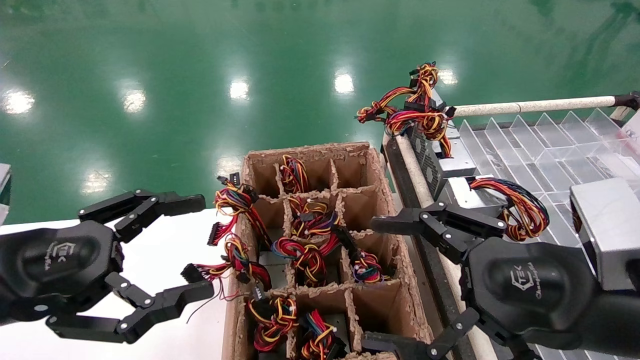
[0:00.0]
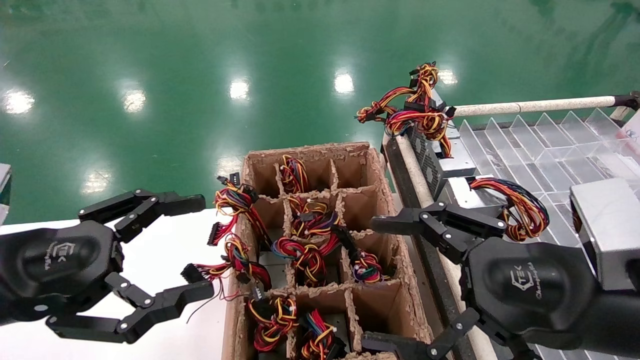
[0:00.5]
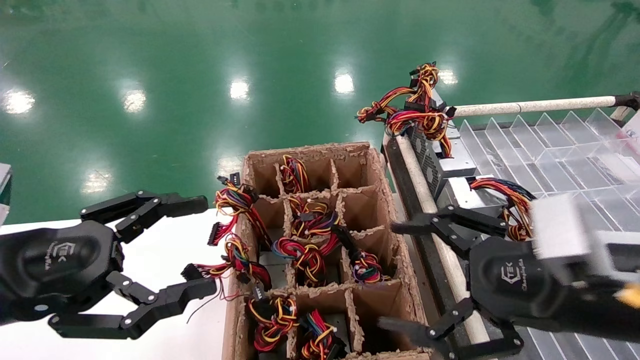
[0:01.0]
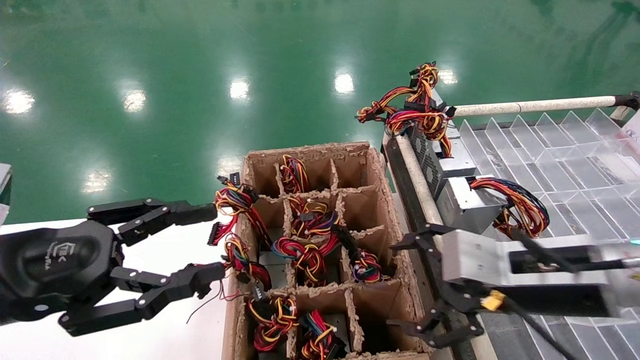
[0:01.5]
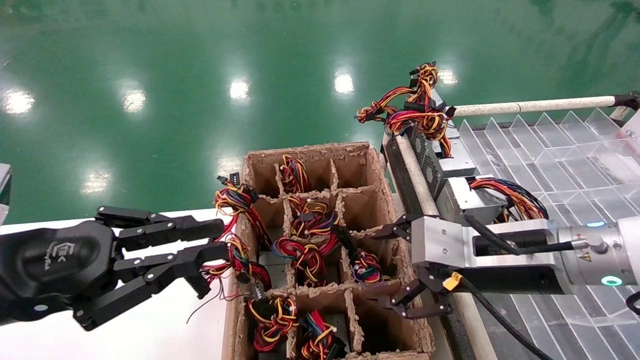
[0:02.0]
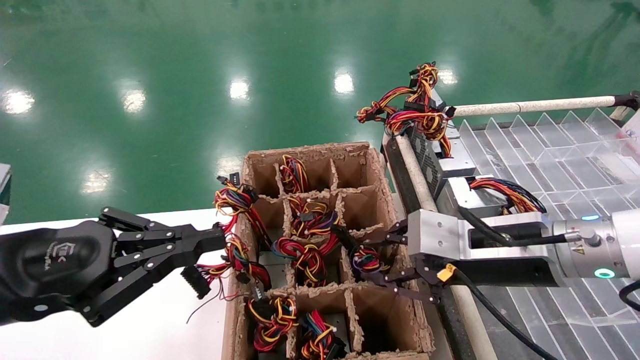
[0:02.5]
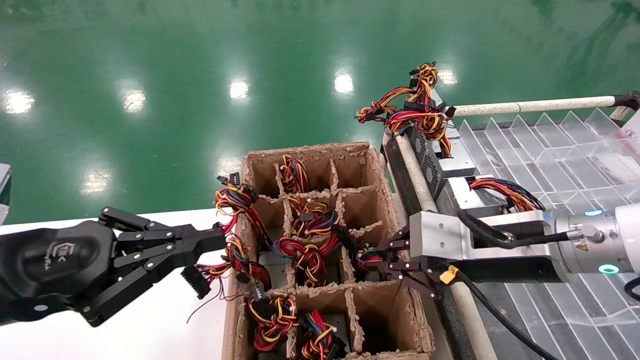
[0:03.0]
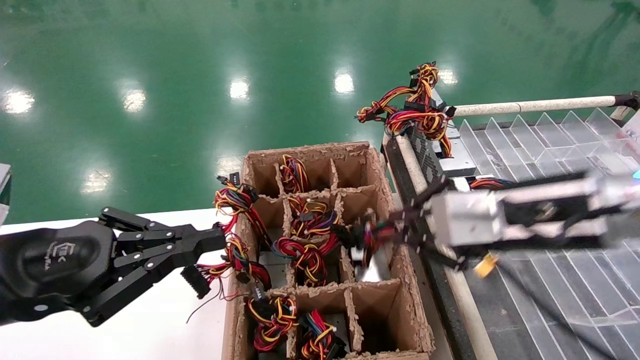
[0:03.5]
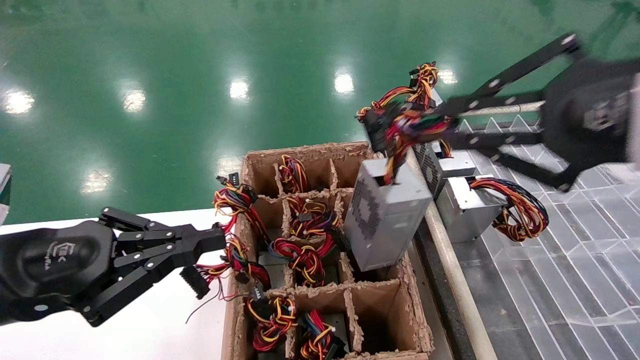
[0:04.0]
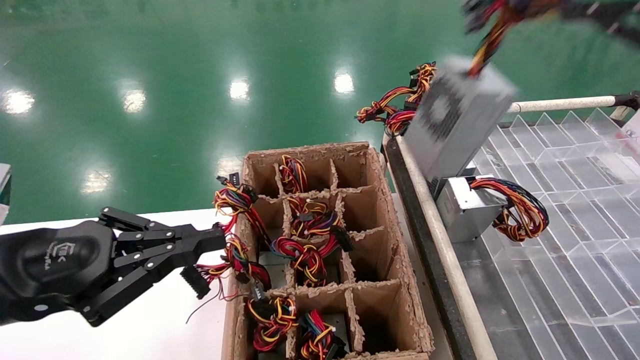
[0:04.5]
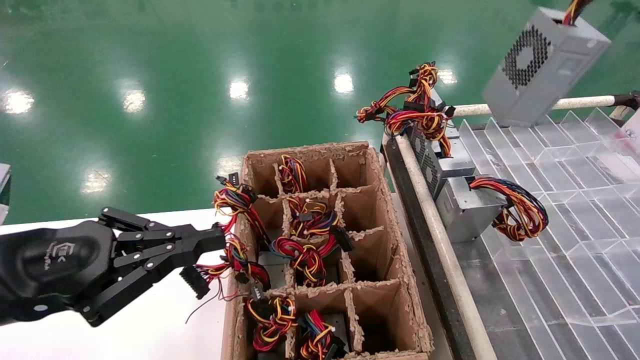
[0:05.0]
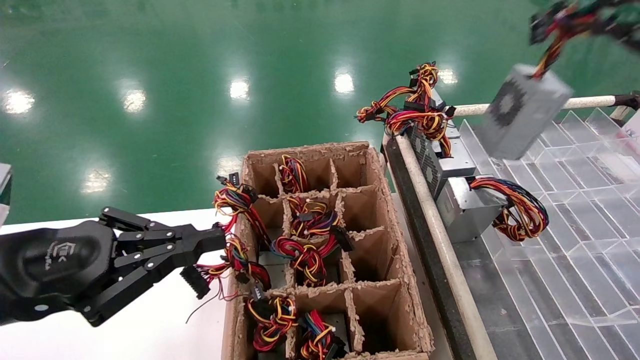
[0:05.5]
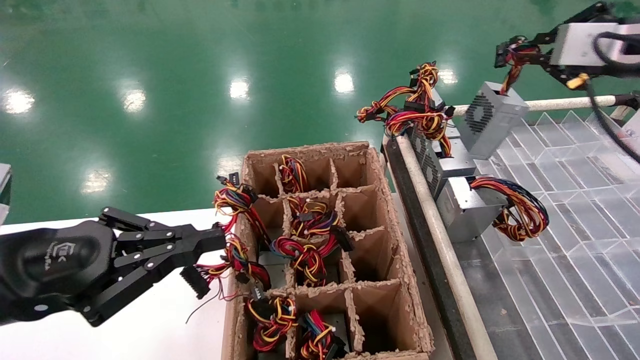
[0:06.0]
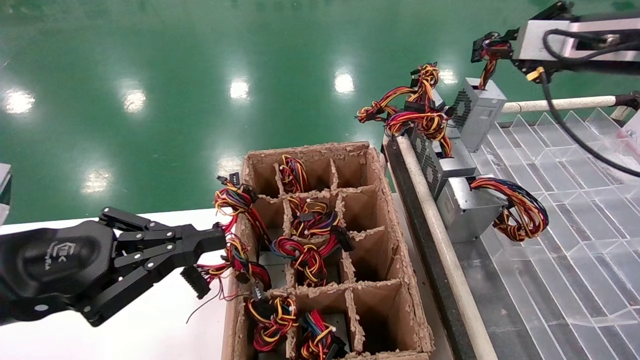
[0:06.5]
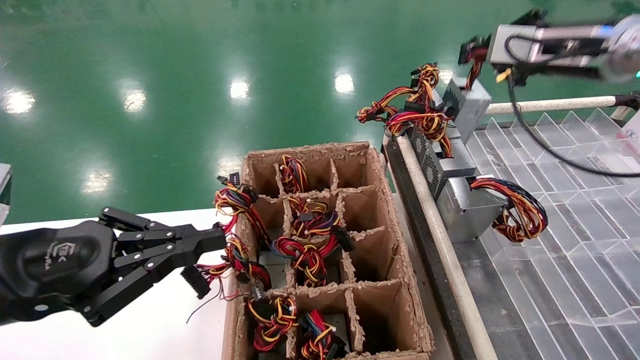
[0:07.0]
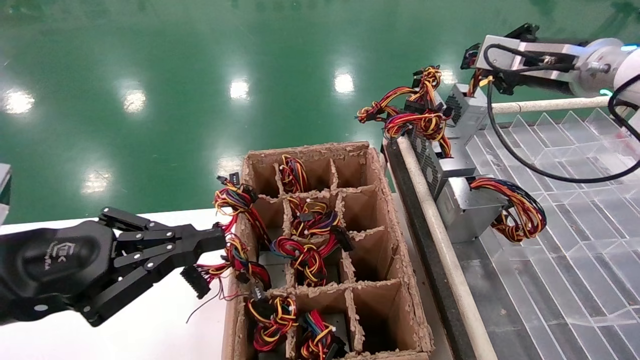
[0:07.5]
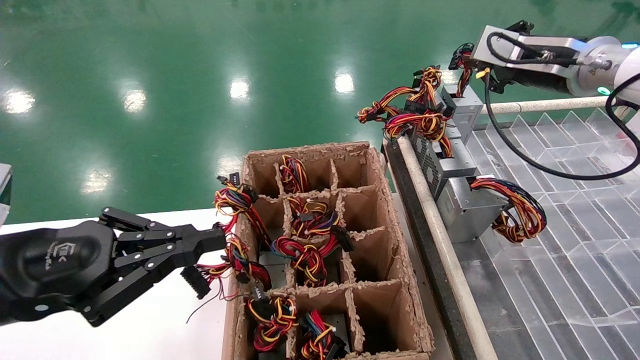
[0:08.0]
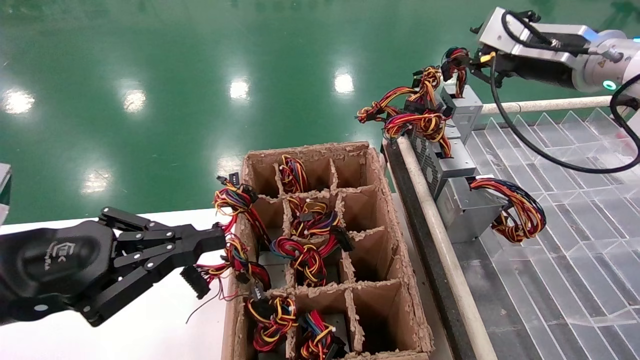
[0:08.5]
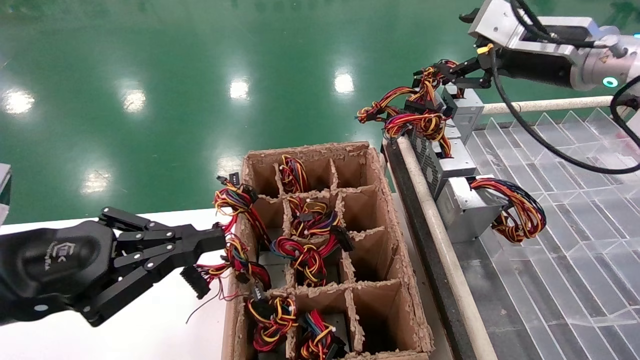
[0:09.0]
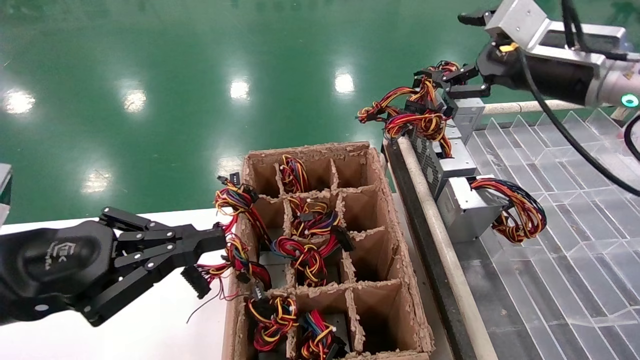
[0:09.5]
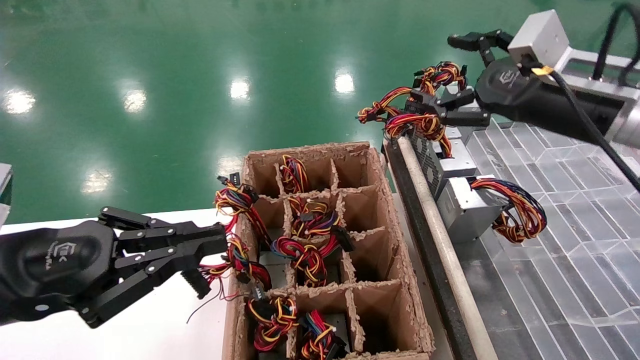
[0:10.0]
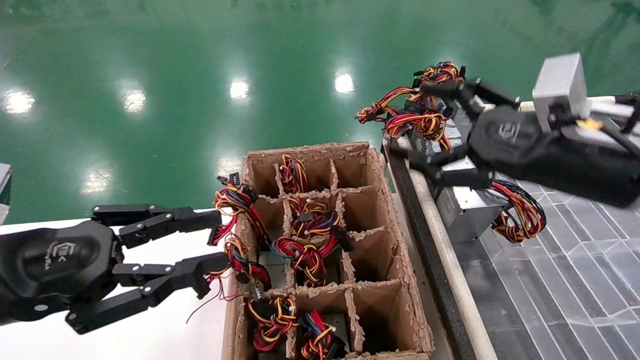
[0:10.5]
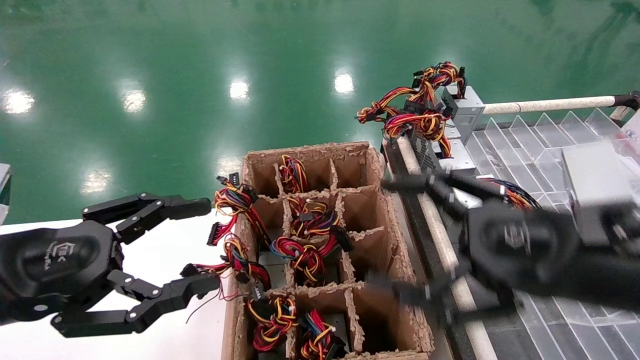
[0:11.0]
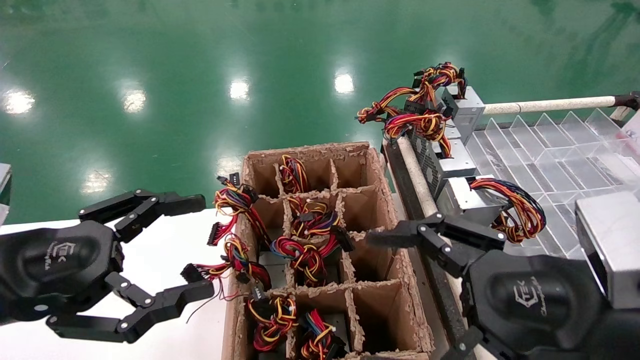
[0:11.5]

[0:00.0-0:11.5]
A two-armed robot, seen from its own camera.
Step, 0:01.5 to 0:03.0: Grab the main unit power supply from the containment box.
Step, 0:03.5 to 0:09.0: Place the main unit power supply in the designated area.
0:00.0 to 0:02.0: The right gripper moves forward, roughly 10 cm. The left gripper closes up.
0:02.0 to 0:04.0: The right gripper travels upward and backward by roughly 20 cm, and closes its fingers.
0:04.0 to 0:06.0: The right gripper shifts approximately 20 cm forward and to the right.
0:06.0 to 0:07.5: The right gripper goes approximately 10 cm forward and to the left.
0:07.5 to 0:09.5: The right gripper changes place by approximately 5 cm, and opens its fingers.
0:09.5 to 0:11.5: The right gripper goes approximately 25 cm backward and downward. Meanwhile the left gripper opens its fingers.

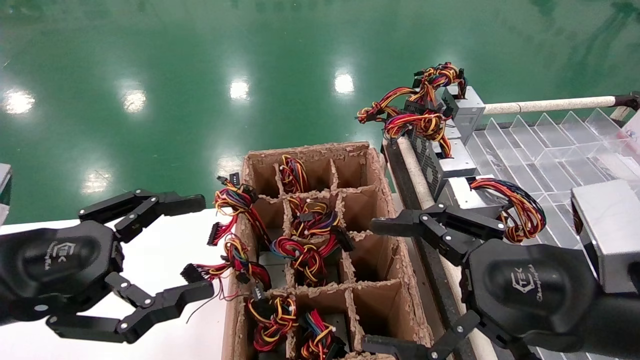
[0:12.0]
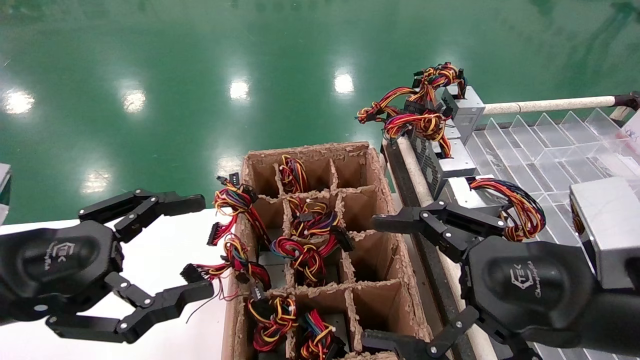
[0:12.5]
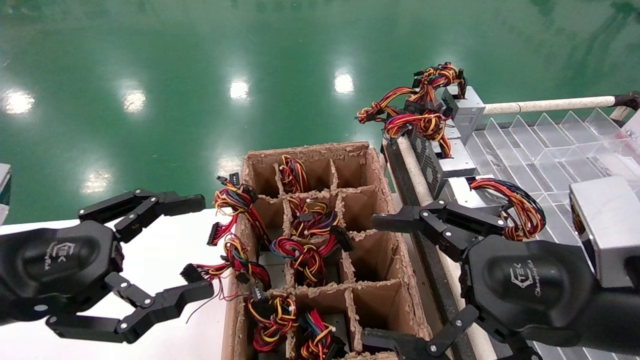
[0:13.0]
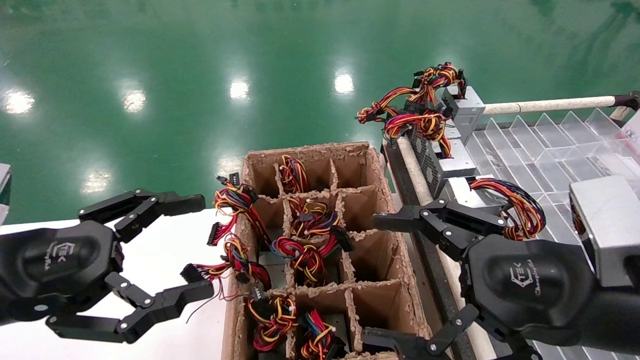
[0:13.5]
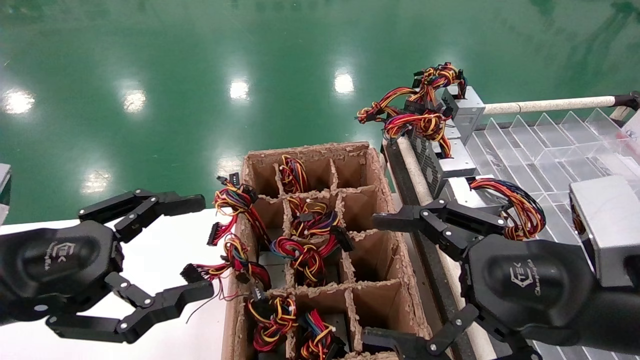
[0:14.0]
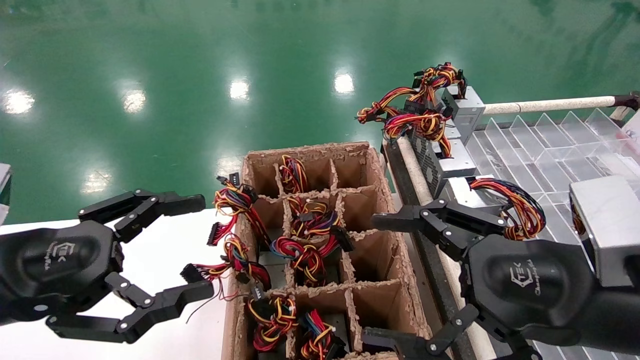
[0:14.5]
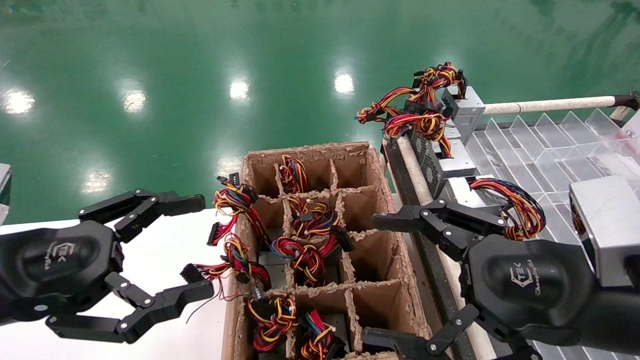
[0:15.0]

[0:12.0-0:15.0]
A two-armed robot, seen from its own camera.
0:12.0 to 0:15.0: Both grippers stay put.

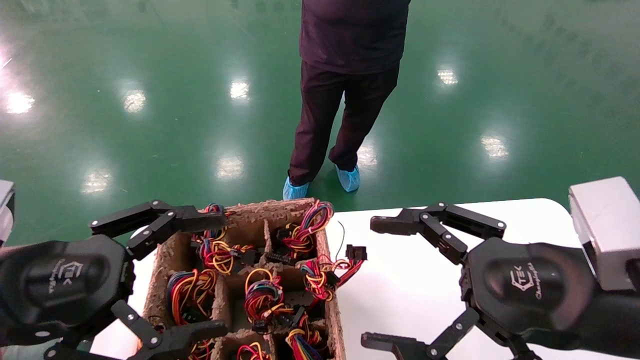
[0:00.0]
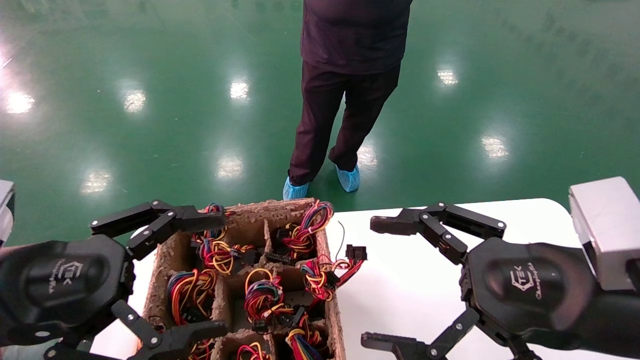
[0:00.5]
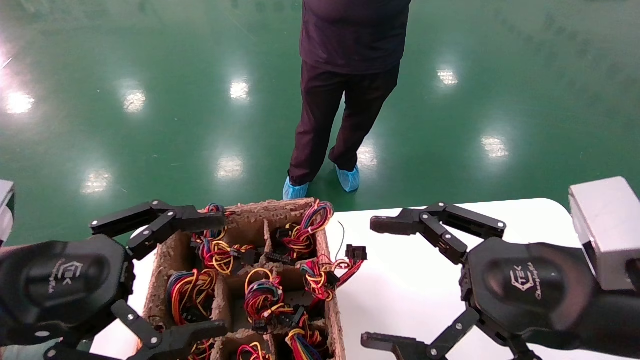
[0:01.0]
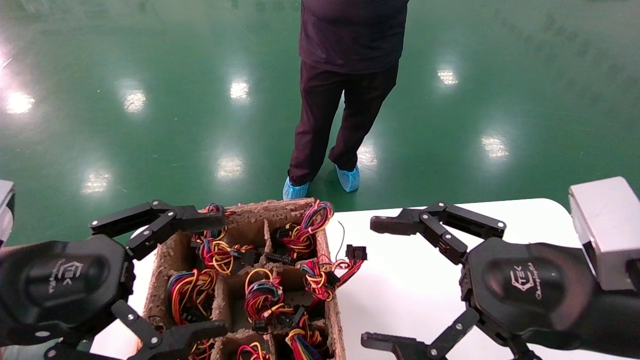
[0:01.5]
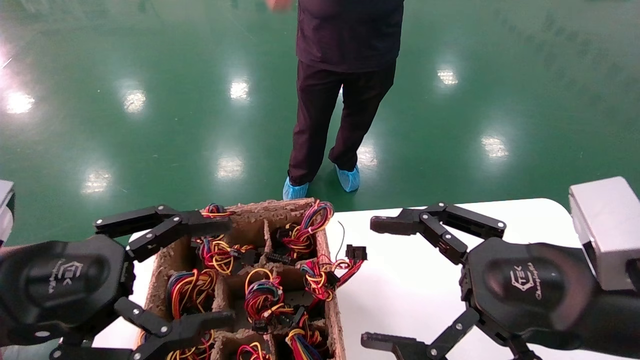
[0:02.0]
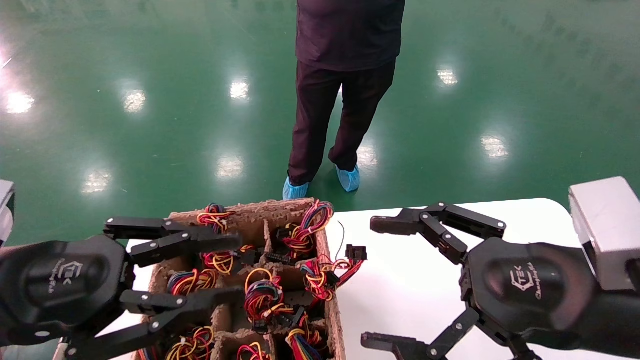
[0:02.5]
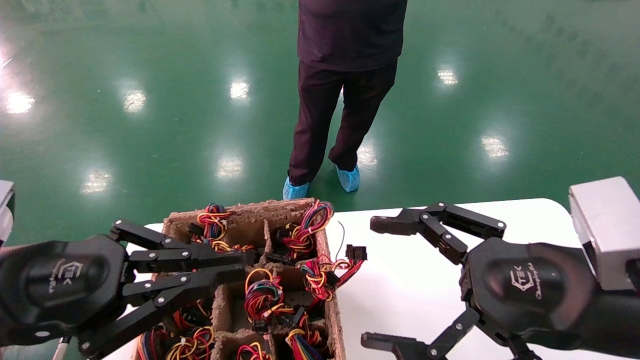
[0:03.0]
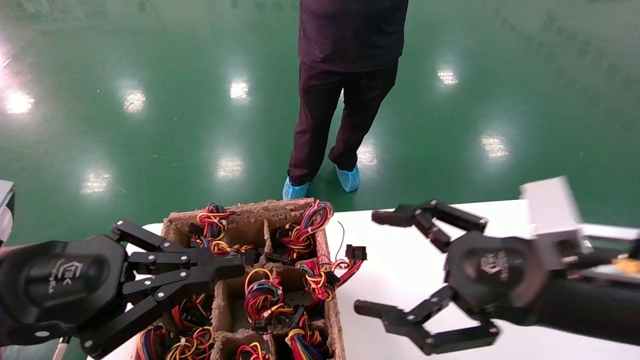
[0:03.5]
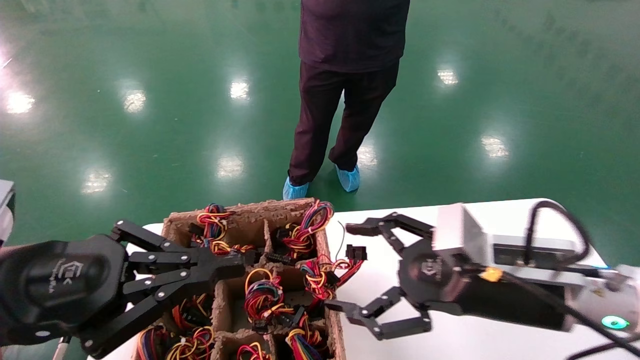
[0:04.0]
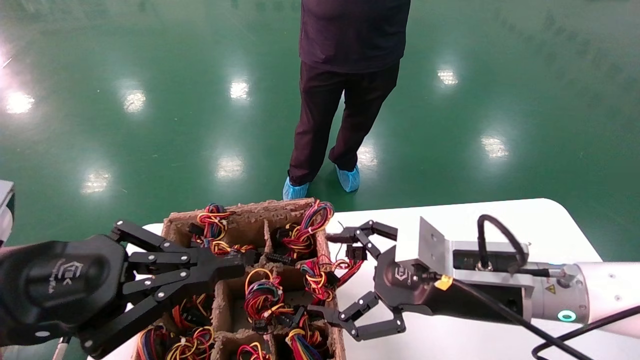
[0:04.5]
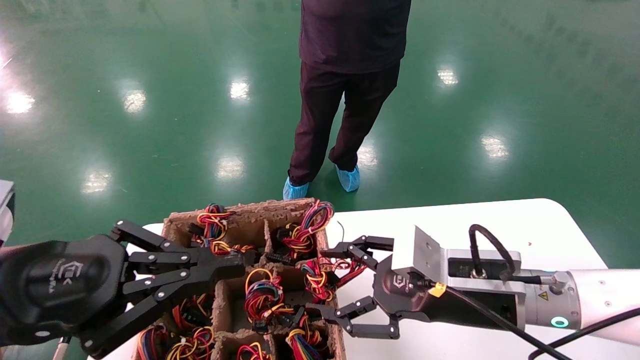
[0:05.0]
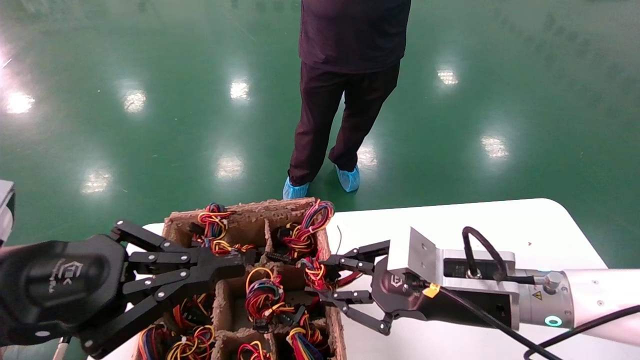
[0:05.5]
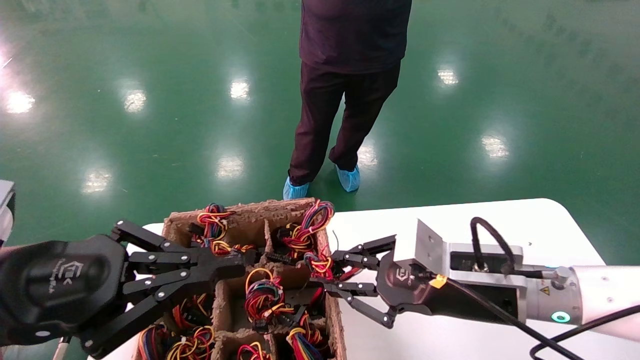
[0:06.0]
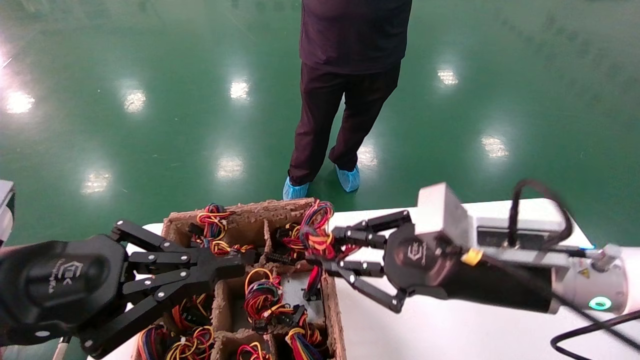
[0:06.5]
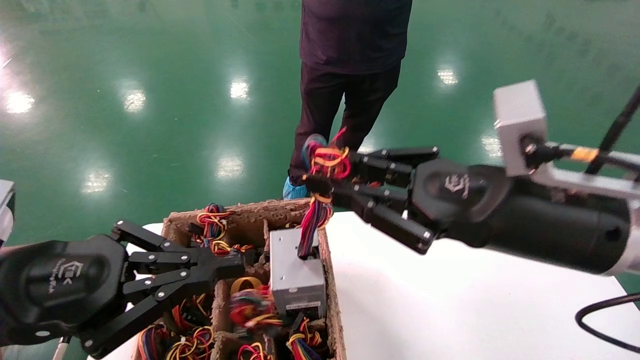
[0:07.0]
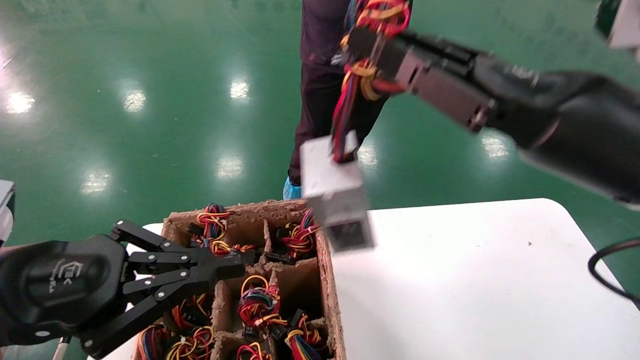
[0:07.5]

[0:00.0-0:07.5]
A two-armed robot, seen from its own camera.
Step, 0:03.5 to 0:05.5: Grab the main unit power supply from the containment box.
0:00.0 to 0:02.0: Both grippers stay about where they are.
0:02.0 to 0:04.0: The right gripper is displaced forward by roughly 10 cm; the left gripper closes its fingers.
0:04.0 to 0:05.5: The right gripper closes.
0:05.5 to 0:07.5: The right gripper is displaced upward by some 15 cm.
